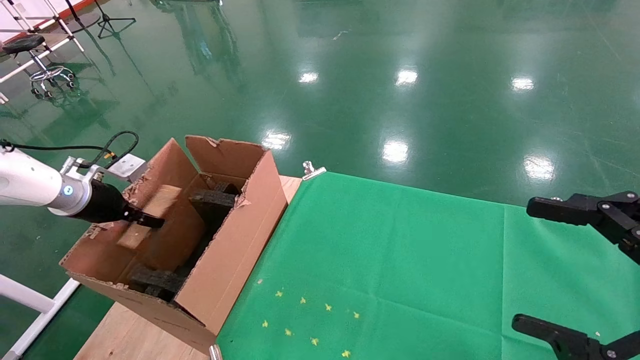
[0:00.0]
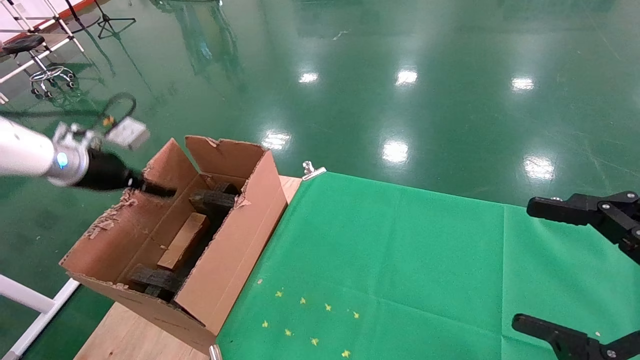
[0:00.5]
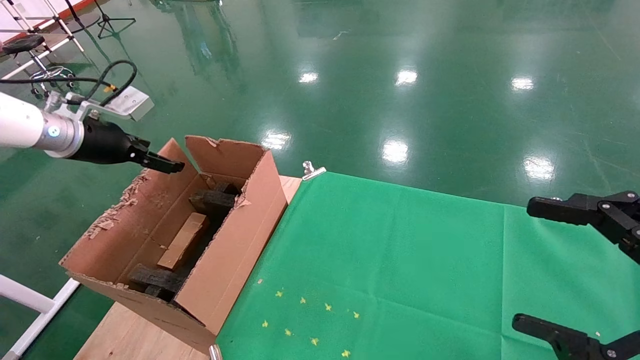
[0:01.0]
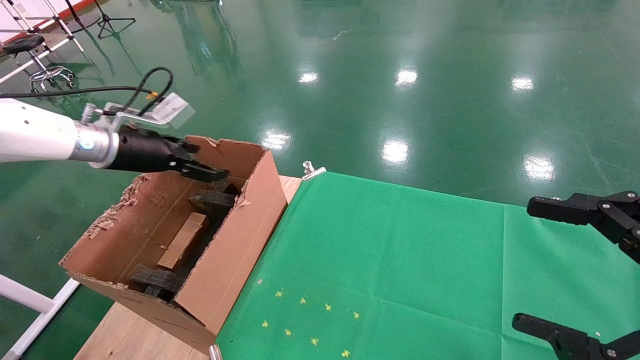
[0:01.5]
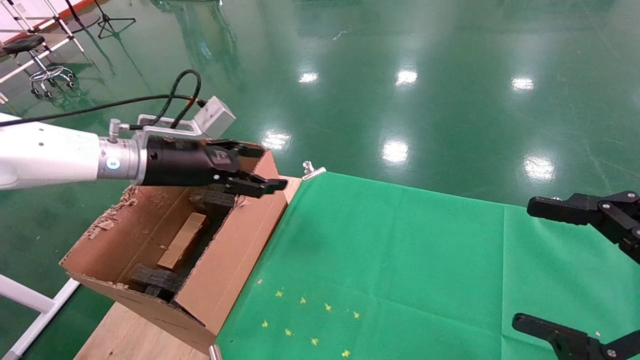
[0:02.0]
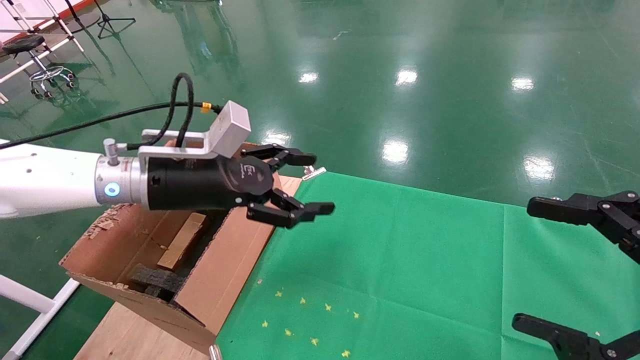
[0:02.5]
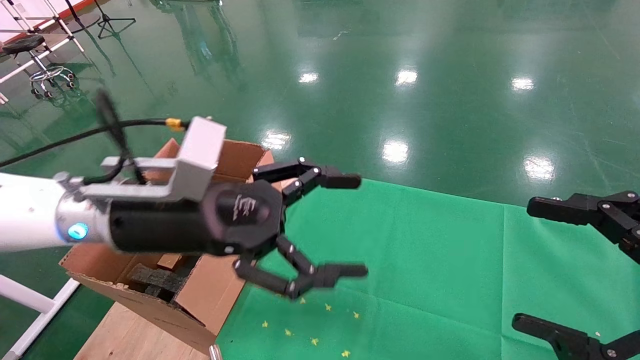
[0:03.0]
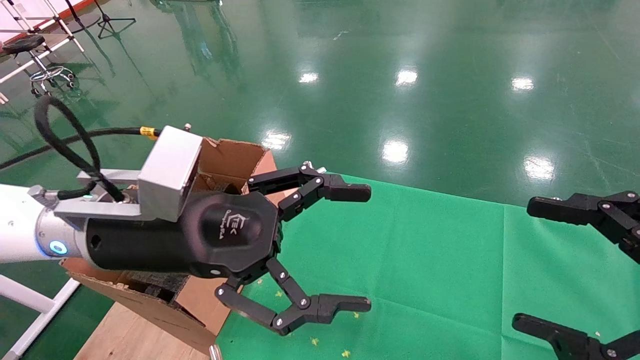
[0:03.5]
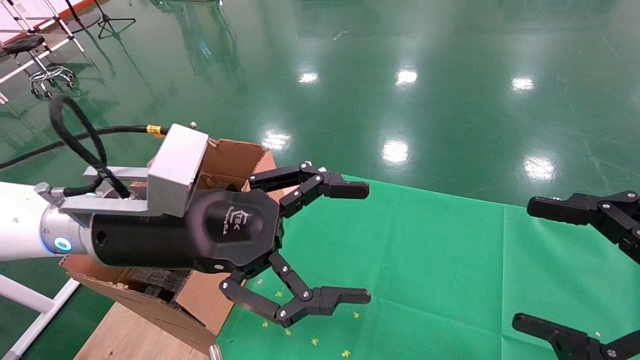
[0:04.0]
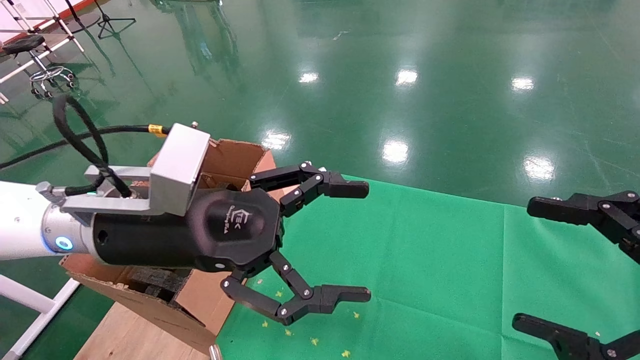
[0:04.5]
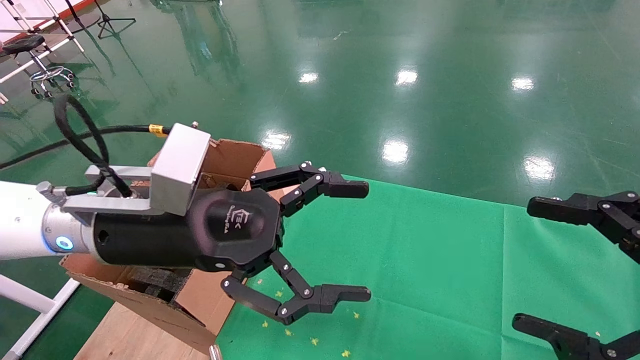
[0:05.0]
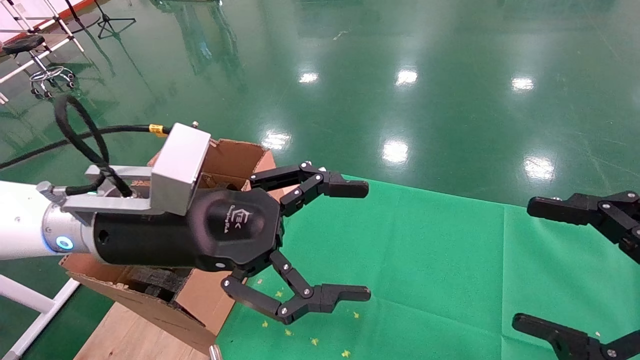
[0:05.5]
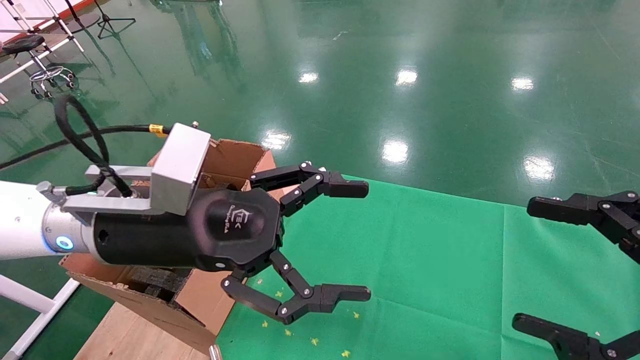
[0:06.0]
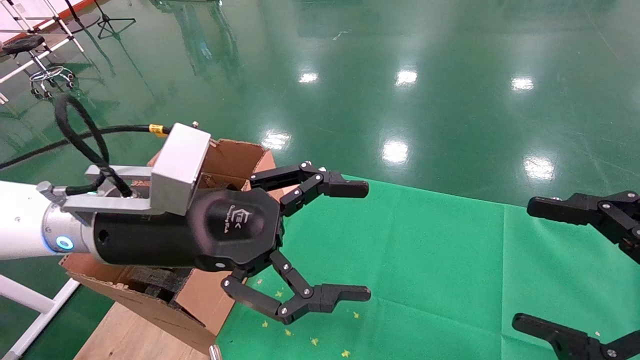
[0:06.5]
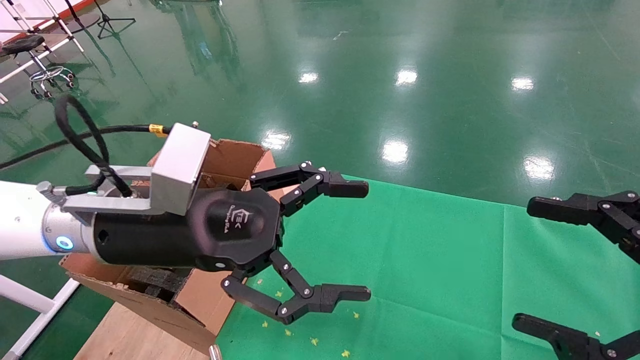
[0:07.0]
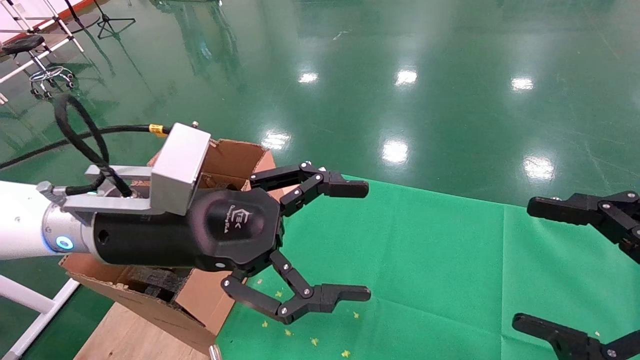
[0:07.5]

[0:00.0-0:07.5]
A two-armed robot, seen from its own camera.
Task of the whole recording: using a robotic arm to pick up a cardboard box and palace it the carton.
0:00.0 to 0:02.0: The left gripper shifts about 20 cm to the right and upward, and opens its fingers.
0:02.0 to 0:04.0: The left gripper travels backward and to the right by roughly 20 cm.
0:04.0 to 0:07.5: Neither gripper changes place.
